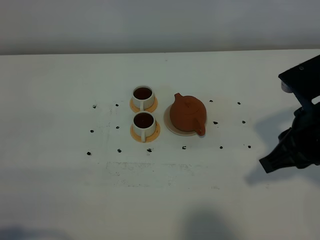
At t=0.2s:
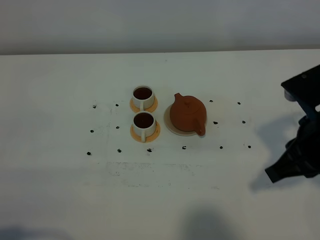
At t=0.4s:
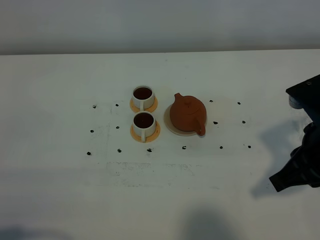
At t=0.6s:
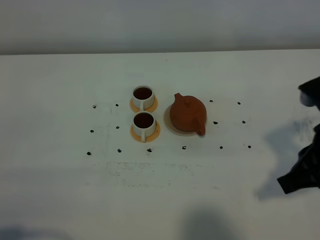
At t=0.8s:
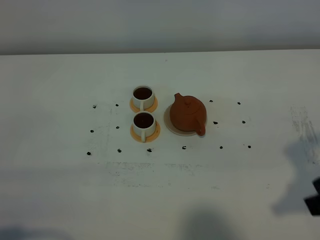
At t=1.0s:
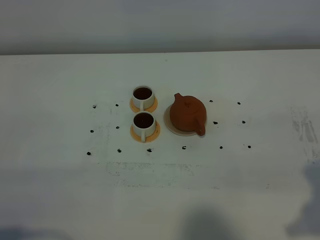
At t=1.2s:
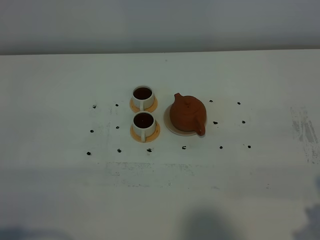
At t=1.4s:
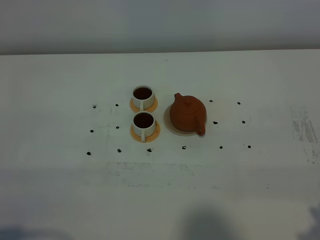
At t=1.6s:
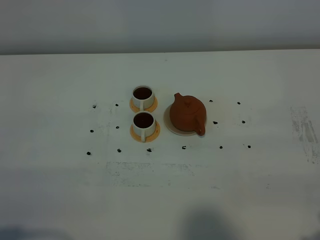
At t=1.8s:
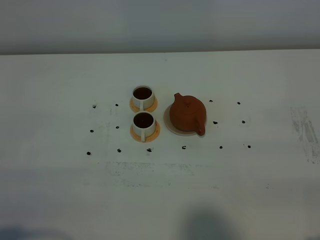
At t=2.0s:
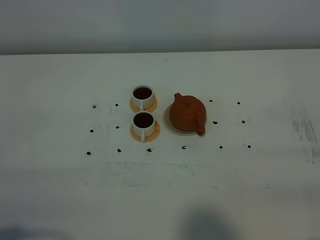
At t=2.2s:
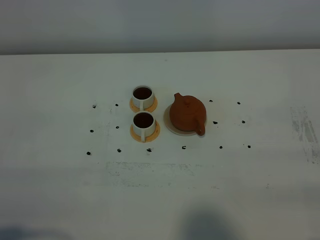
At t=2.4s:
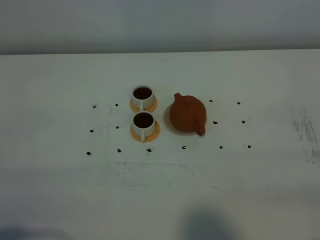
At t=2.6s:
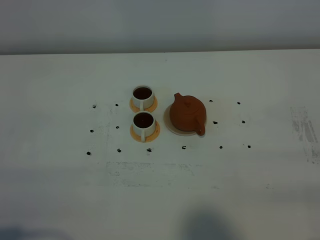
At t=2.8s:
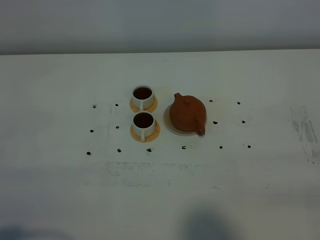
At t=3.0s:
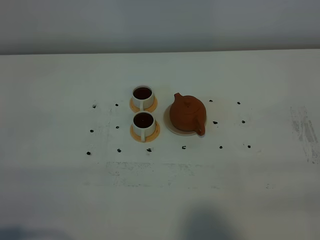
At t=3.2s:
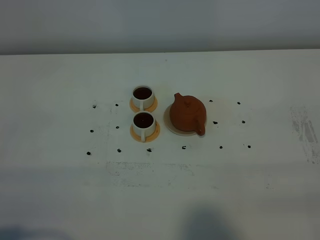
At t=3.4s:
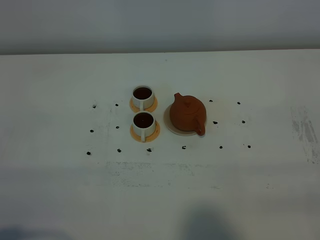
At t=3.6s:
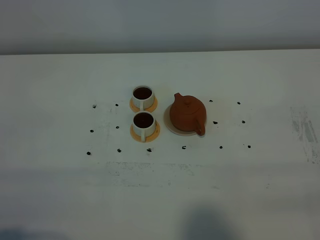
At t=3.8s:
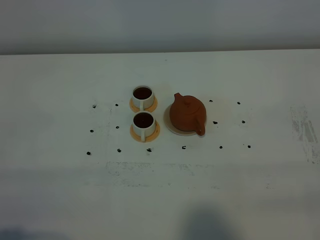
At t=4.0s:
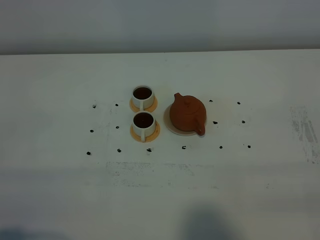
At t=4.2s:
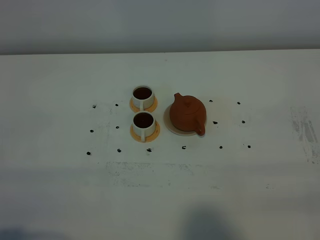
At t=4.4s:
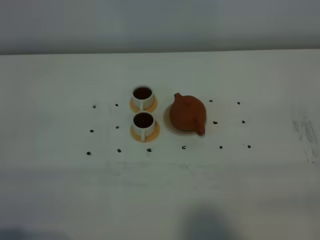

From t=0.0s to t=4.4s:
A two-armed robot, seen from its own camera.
Task of the whole recording: grasp the brown teapot and pour the tea into the two white teacups one by one, put the brown teapot back in its original place.
From t=0.0s to t=1.4s: The right gripper goes roughly 15 cm backward and to the right.
From t=3.0s to t=4.4s: Neither gripper changes place.
